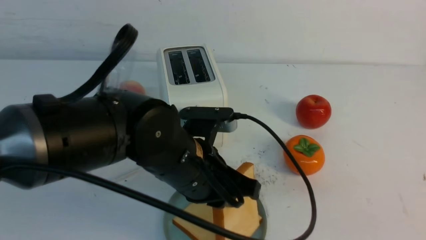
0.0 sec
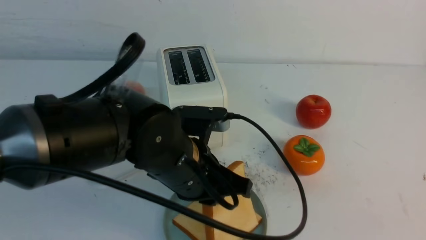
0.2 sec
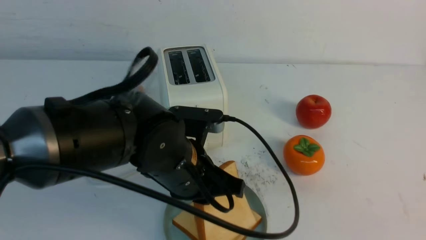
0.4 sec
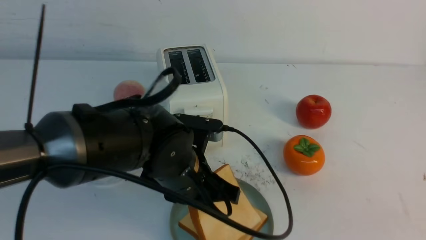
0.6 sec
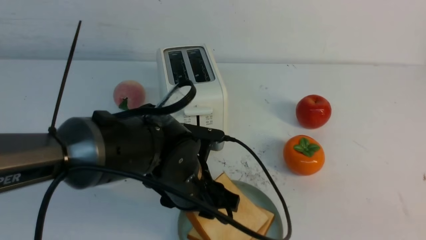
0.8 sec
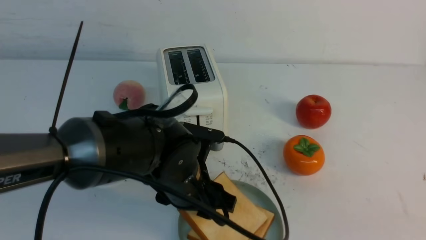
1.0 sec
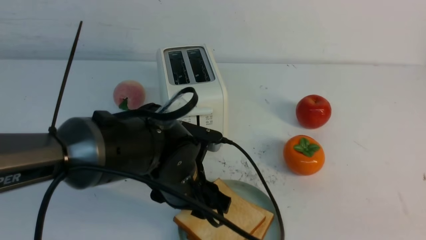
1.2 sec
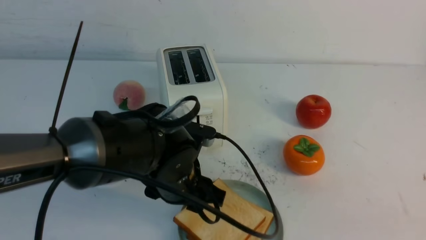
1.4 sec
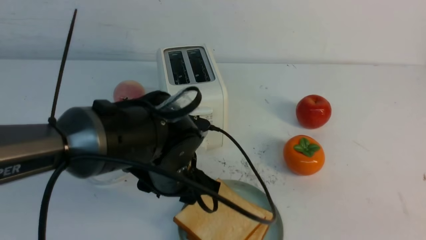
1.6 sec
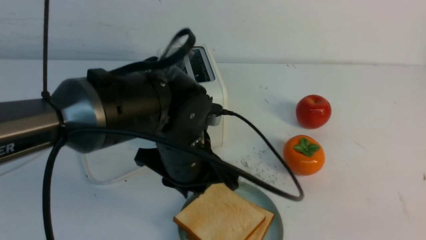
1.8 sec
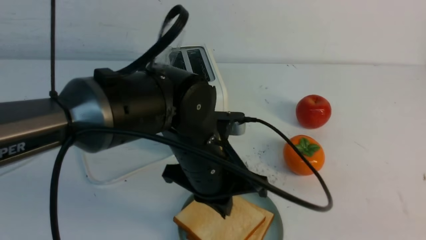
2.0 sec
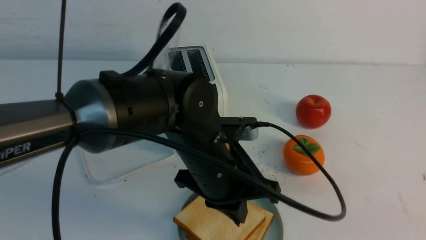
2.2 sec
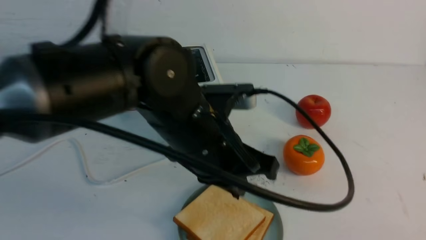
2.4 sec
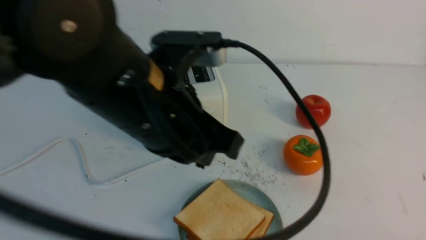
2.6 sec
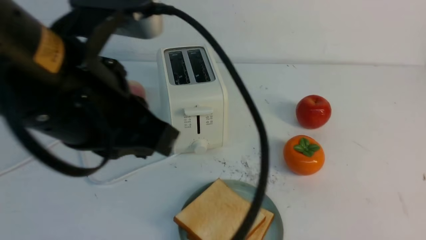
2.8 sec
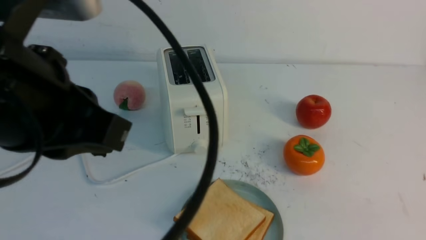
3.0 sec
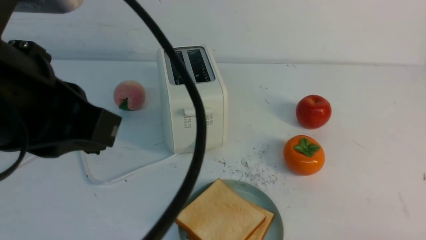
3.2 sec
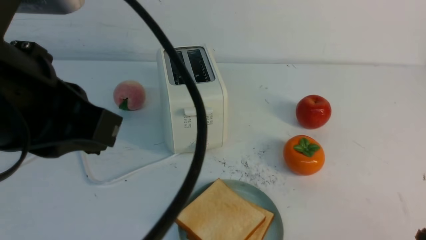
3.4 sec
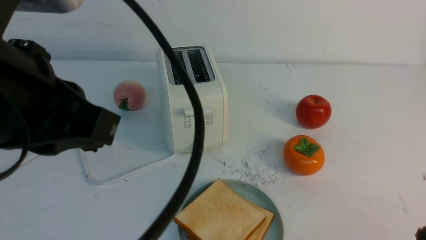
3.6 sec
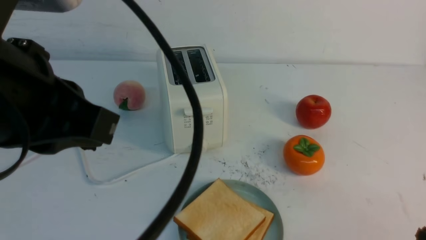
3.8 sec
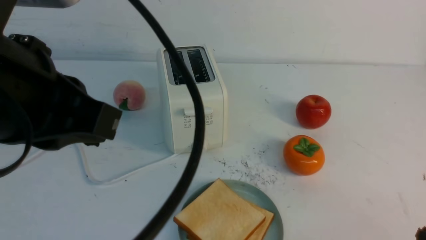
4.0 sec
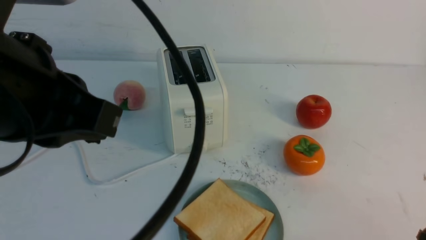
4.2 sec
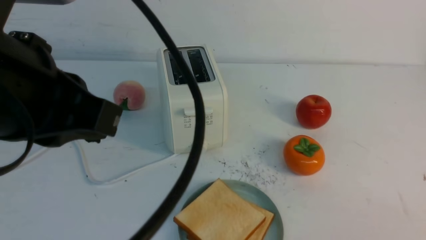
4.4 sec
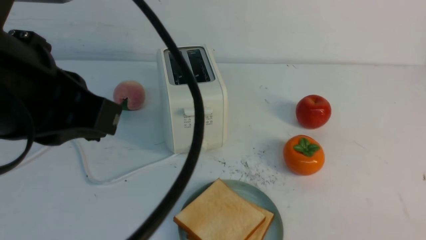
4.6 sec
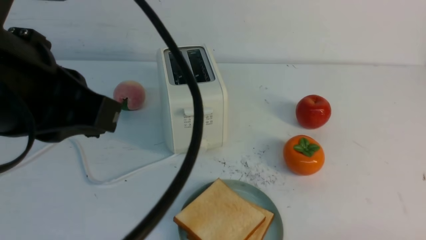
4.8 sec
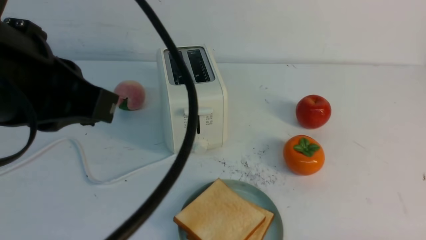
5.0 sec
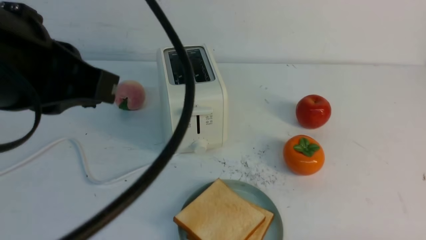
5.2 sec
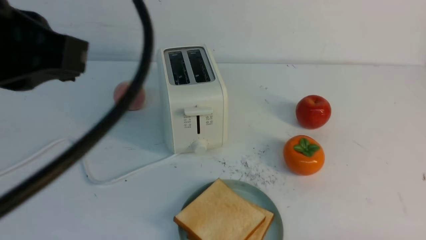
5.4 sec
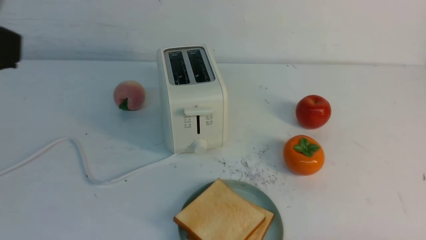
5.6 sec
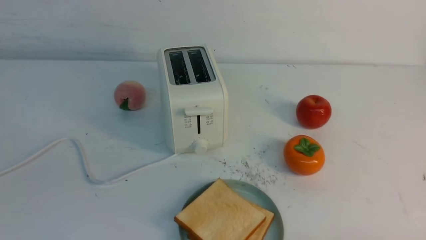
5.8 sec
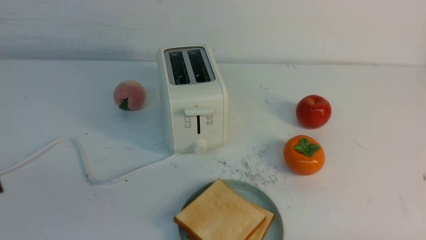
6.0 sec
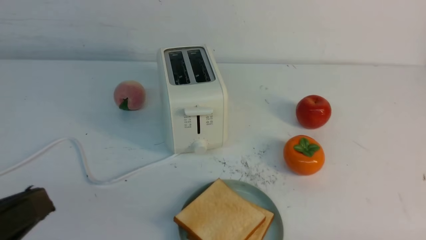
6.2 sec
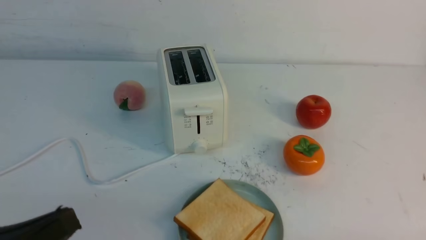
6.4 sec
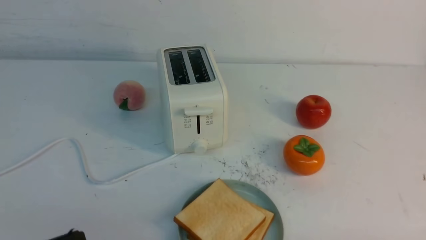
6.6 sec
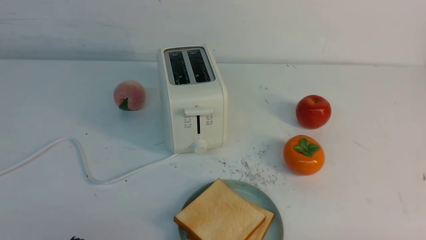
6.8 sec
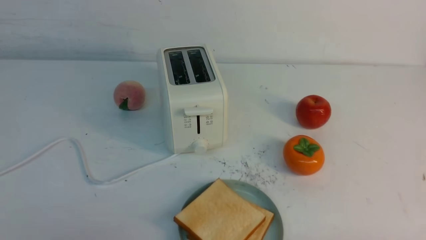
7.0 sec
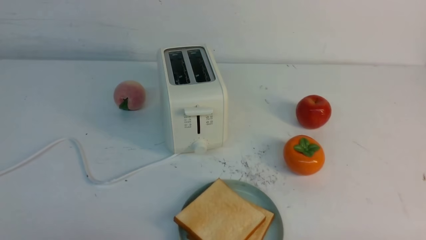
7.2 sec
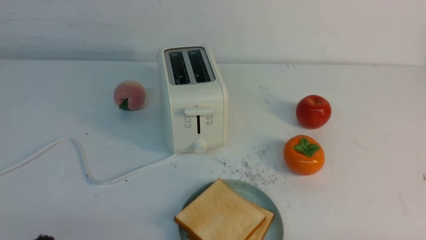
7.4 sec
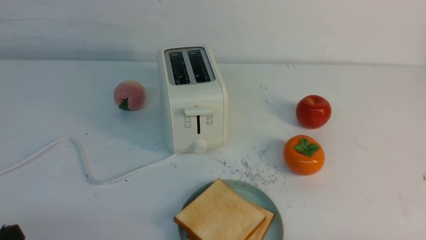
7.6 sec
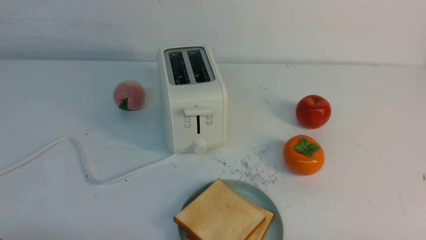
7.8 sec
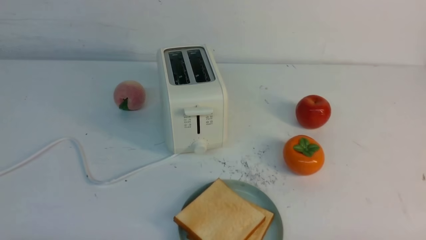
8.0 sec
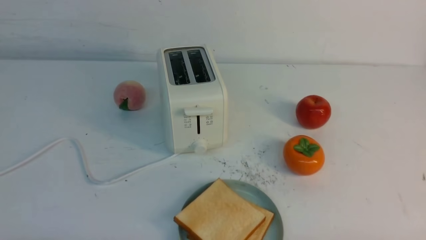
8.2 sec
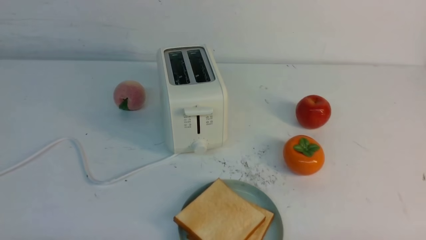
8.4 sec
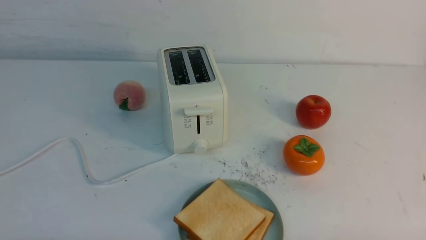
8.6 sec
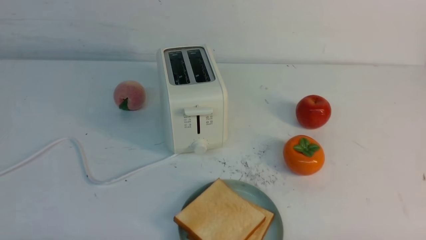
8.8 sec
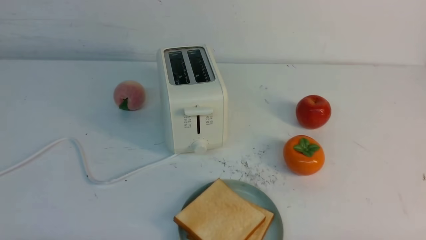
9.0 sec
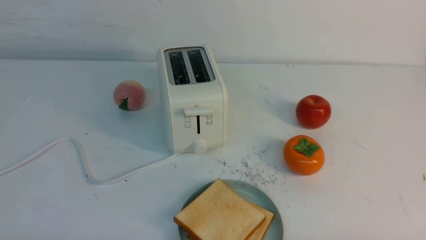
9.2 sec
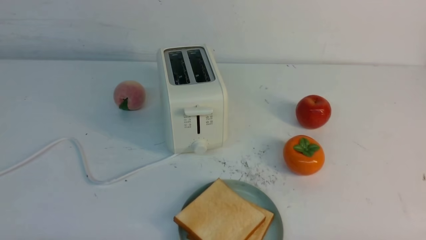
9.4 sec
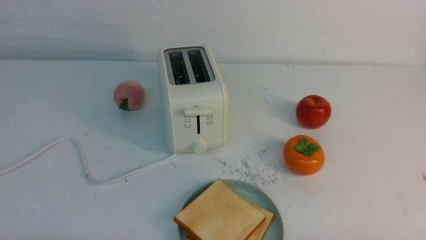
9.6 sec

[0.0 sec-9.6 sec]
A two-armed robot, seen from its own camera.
Task of the whole recording: take toasted bread from bread machine on white table place on plate.
0.0 sec to 1.6 sec: The left gripper opens its fingers.
1.6 sec to 3.2 sec: The right gripper heads downward, covering approximately 10 cm, and closes its fingers. The left gripper heads upward, backward and to the left, covering approximately 25 cm, and closes.
3.2 sec to 4.8 sec: The right gripper shifts about 5 cm downward.
4.8 sec to 6.4 sec: The left gripper heads downward, backward and to the left, covering approximately 20 cm.
6.4 sec to 8.0 sec: The left gripper moves downward, about 10 cm.
8.0 sec to 9.6 sec: Neither gripper changes place.
